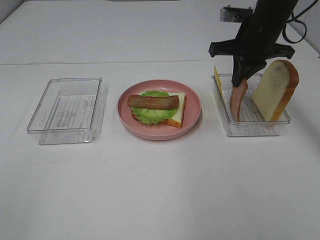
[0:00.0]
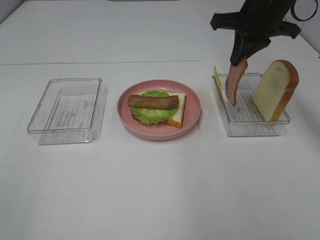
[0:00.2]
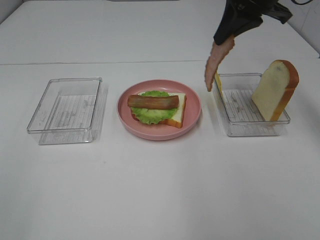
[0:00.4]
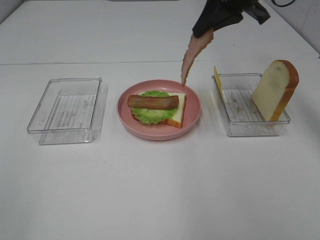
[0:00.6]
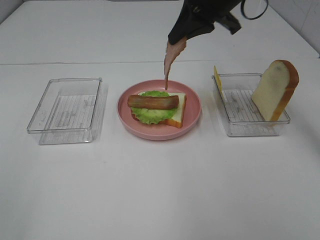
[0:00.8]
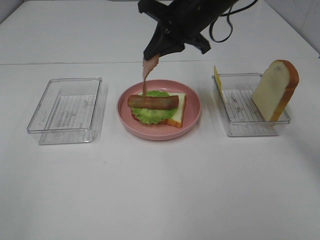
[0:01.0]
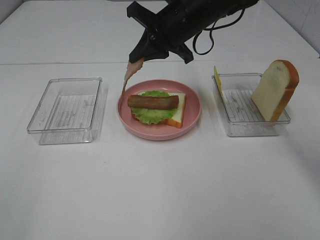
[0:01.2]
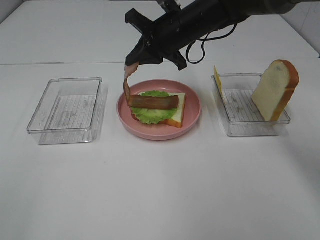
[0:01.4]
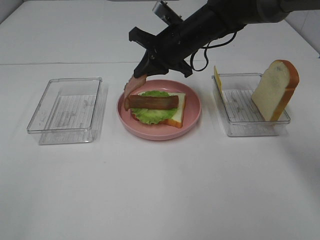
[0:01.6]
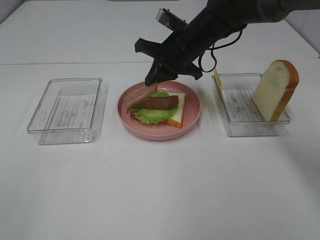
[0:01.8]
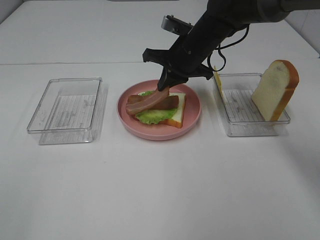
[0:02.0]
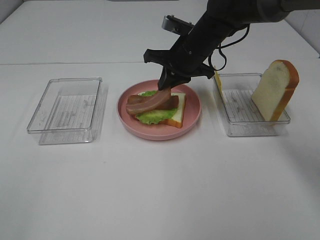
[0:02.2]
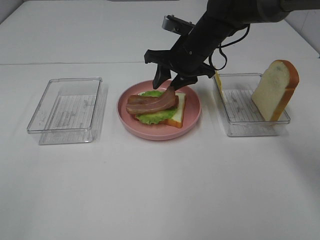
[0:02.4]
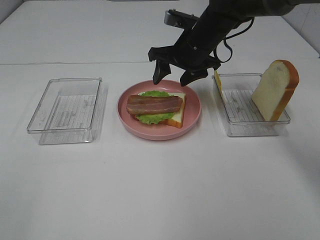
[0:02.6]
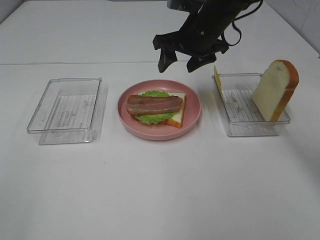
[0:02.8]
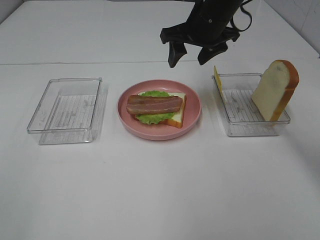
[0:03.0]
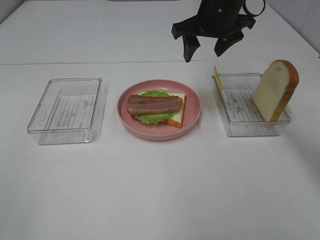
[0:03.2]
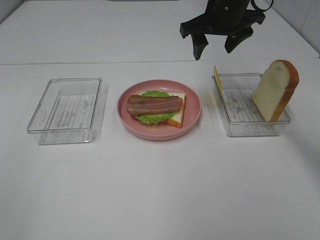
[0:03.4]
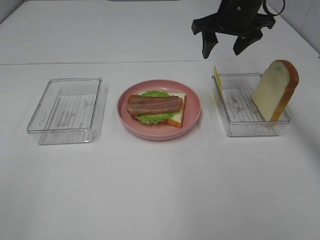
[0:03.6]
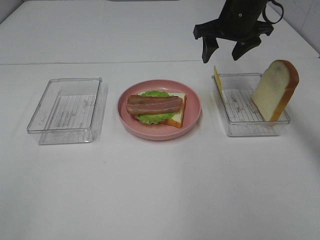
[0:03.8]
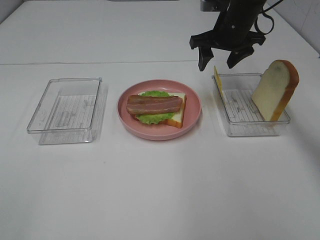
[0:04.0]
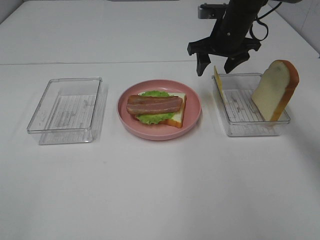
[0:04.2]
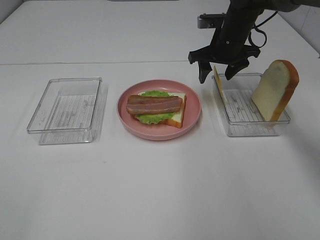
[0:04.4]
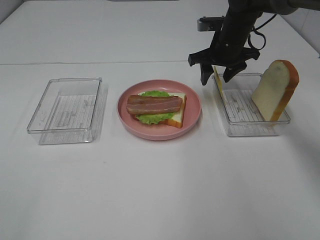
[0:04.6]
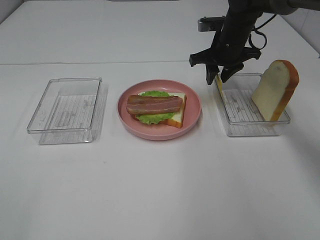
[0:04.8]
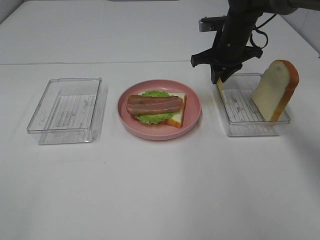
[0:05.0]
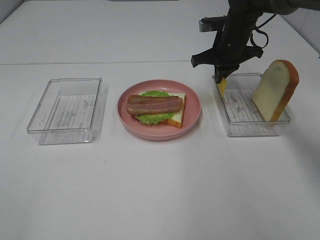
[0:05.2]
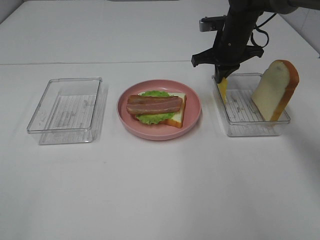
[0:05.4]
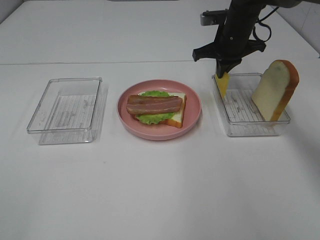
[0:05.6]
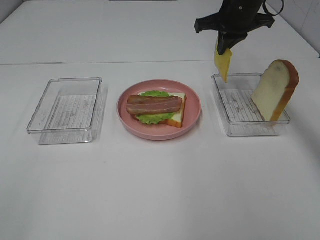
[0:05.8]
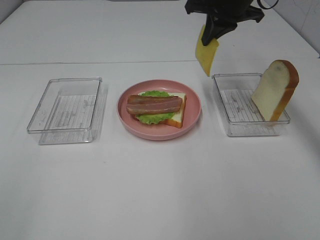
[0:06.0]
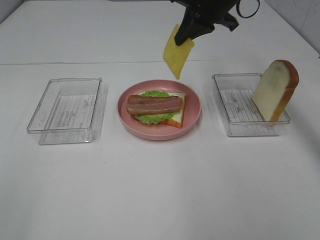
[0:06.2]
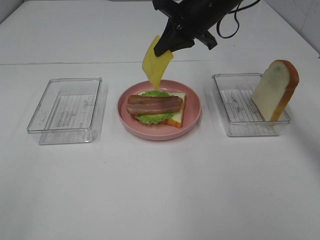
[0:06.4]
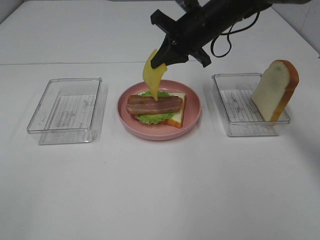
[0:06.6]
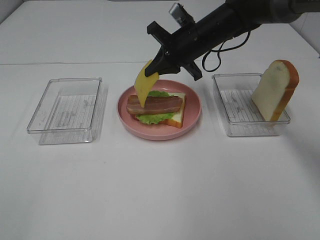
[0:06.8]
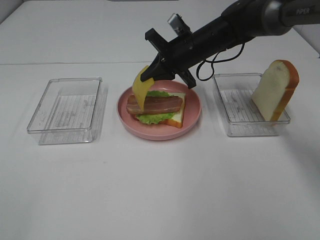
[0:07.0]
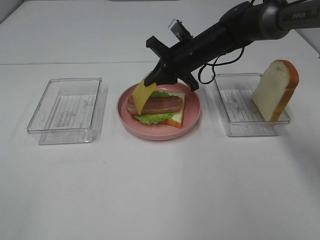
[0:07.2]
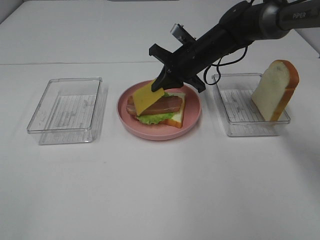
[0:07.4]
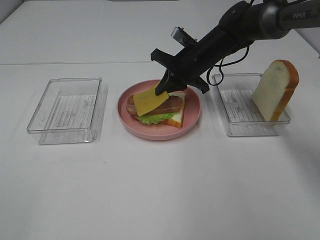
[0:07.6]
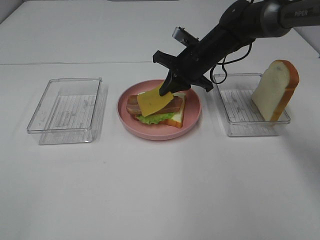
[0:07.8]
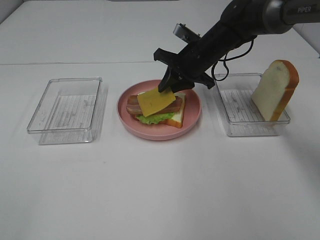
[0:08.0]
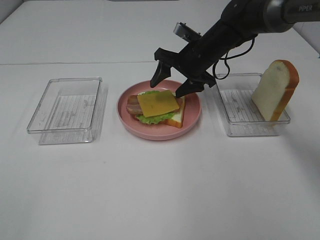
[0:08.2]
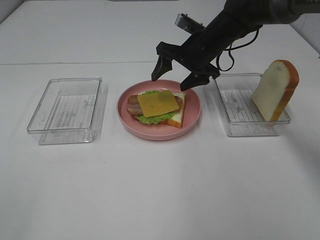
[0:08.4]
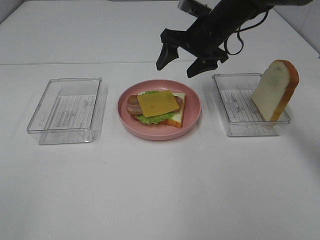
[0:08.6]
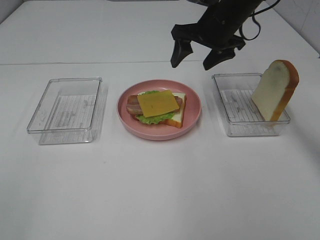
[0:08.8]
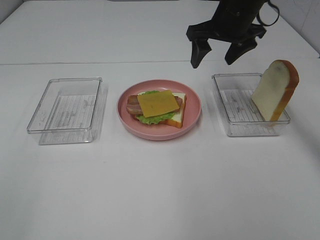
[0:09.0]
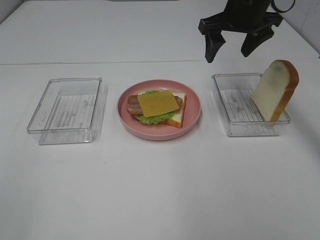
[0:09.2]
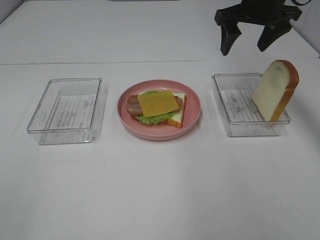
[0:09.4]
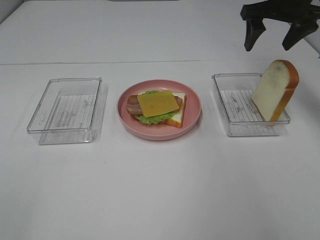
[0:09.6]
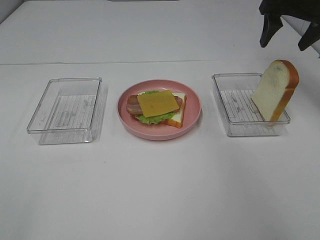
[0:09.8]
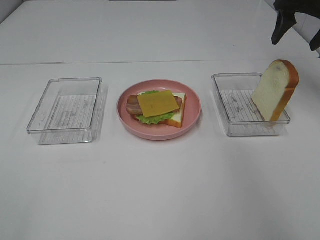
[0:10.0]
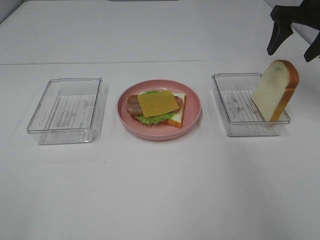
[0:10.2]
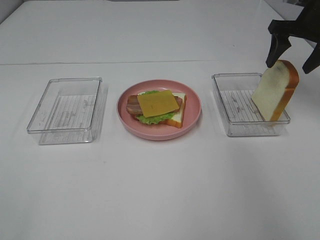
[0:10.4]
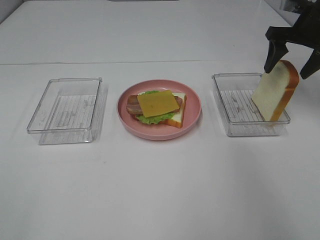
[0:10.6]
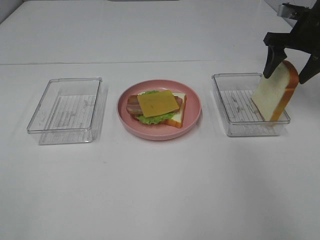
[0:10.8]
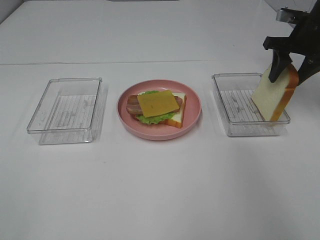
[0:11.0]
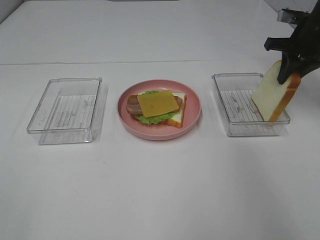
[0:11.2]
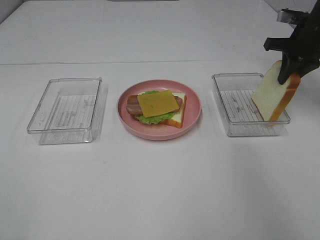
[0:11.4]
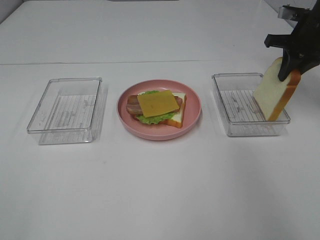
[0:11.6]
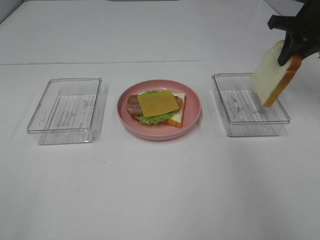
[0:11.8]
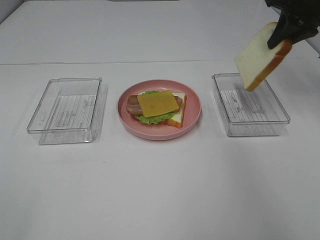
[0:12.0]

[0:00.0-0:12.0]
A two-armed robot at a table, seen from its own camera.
Task of the whole recording: Make sandwiches.
Step, 0:00.0 to 0:02.6: Right hand:place bacon on bacon.
Step, 0:02.8 to 0:05.2: Right hand:grab the cheese slice.
Step, 0:05.4 to 0:08.2: Right hand:place the cheese slice on top of the bacon.
Step, 0:08.4 to 0:11.4: Right hand:grab the bread slice.
0:00.0 to 0:01.6: The right gripper moves to the left and downward, about 15 cm.
0:01.6 to 0:03.0: The right gripper is displaced upward by approximately 5 cm, and opens.
0:03.0 to 0:04.4: The right gripper moves downward, forward and to the right, about 10 cm.
0:04.4 to 0:06.0: The right gripper goes about 10 cm upward, and closes up.
0:06.0 to 0:07.6: The right gripper travels downward by roughly 15 cm.
0:07.6 to 0:09.0: The right gripper moves upward, some 10 cm, and opens up.
0:09.0 to 0:10.4: The right gripper goes some 15 cm to the right.
0:10.4 to 0:12.0: The right gripper closes its fingers.

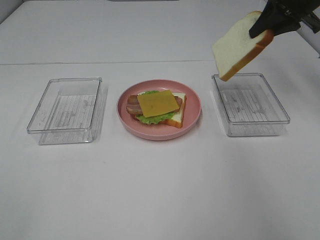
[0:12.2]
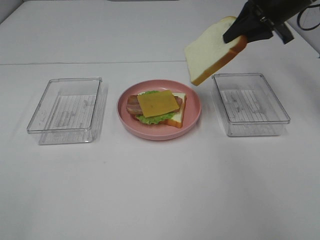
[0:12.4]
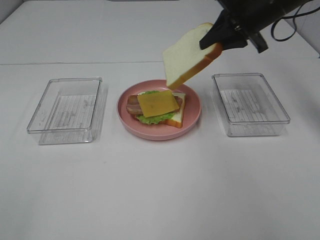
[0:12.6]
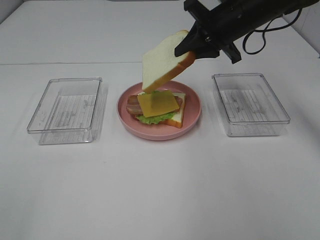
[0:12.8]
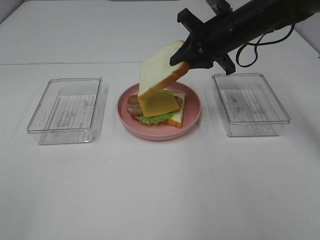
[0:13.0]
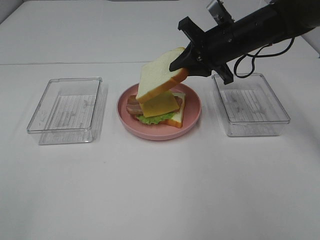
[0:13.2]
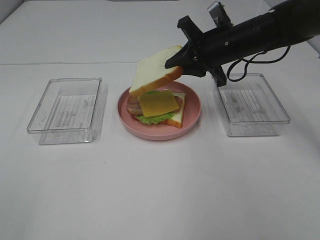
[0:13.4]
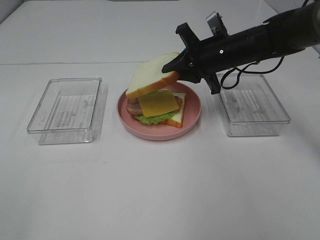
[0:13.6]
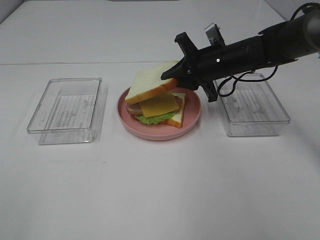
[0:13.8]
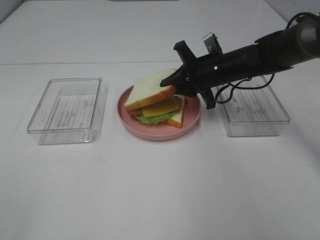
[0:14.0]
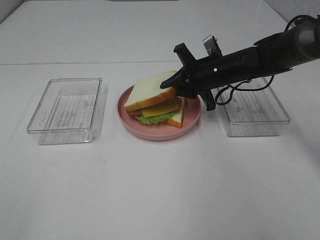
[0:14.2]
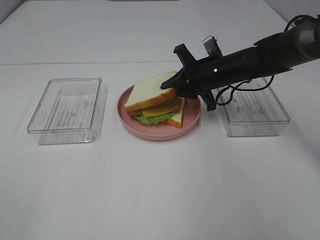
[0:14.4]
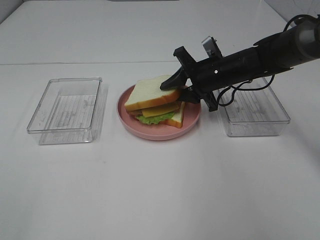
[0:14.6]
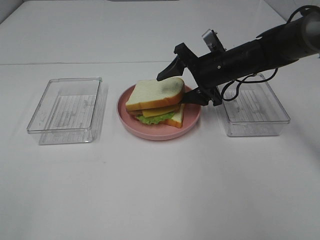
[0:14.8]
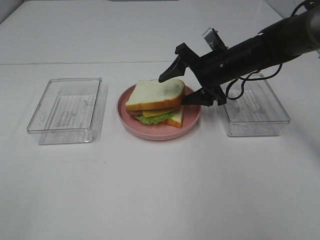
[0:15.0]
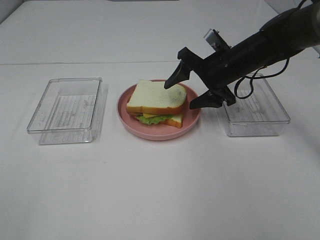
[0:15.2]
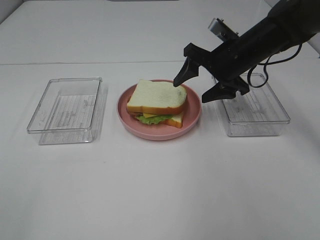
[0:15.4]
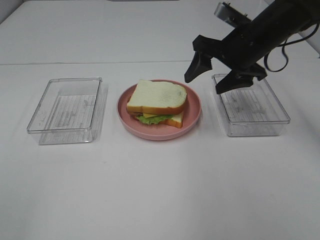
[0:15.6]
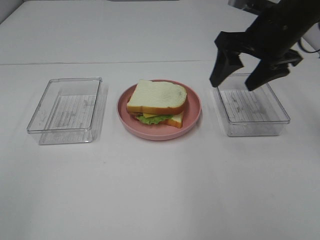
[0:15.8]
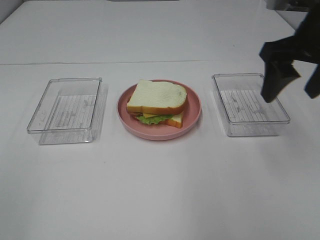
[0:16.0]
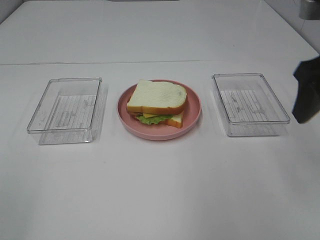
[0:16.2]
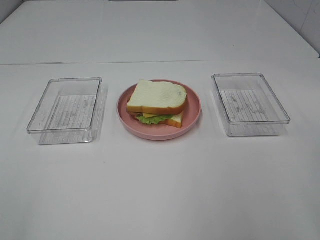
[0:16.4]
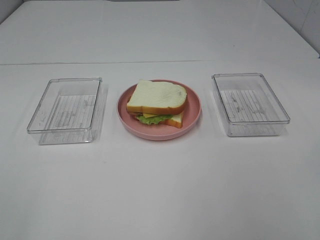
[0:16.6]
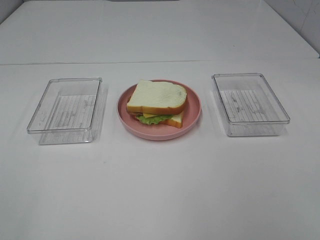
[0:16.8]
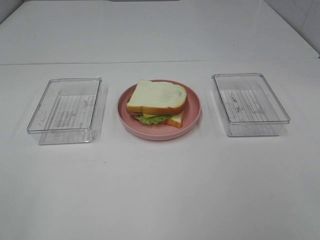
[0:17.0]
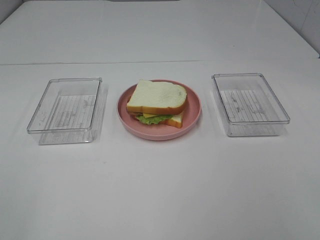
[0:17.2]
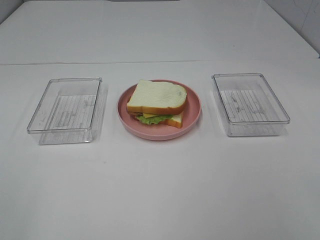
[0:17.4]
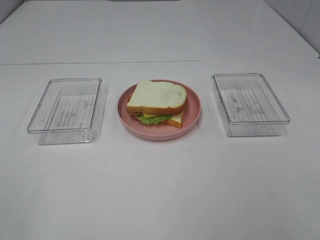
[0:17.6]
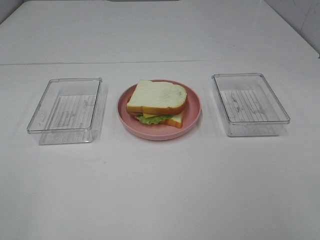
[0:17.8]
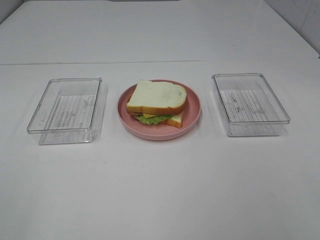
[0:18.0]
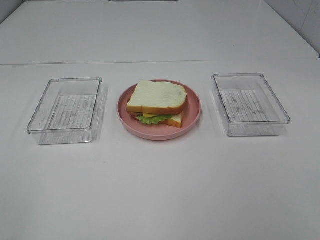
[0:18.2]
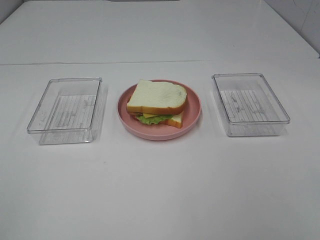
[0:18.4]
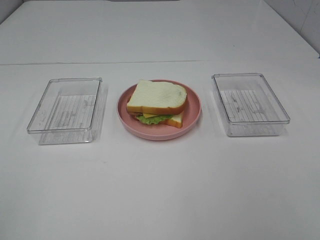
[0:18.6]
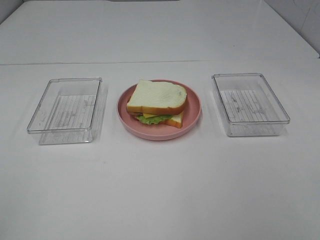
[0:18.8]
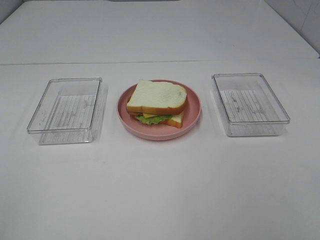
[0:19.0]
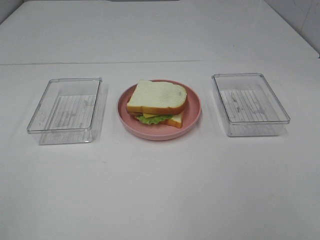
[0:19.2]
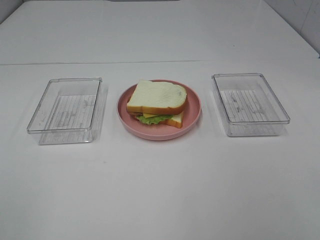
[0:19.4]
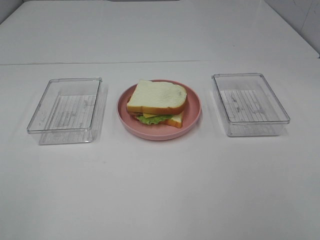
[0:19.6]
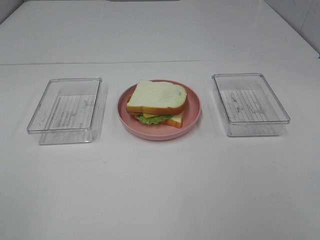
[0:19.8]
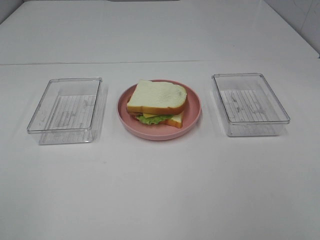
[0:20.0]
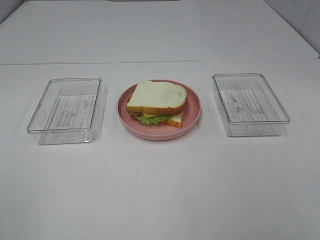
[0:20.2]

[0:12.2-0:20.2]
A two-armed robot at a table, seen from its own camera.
Task of the whole recording: Make sandwiches.
Step, 0:12.2 to 0:15.2: Right hand:place the bread slice on the cheese slice.
0:12.2 to 0:13.8: The right gripper heads downward and to the left, covering approximately 20 cm.
0:13.8 to 0:15.4: The right gripper opens up.
0:15.4 to 0:17.0: The right gripper is displaced backward by about 40 cm.

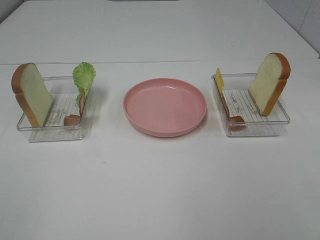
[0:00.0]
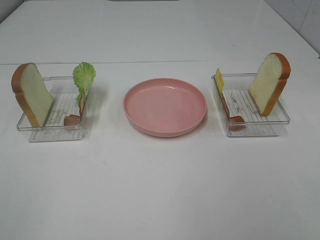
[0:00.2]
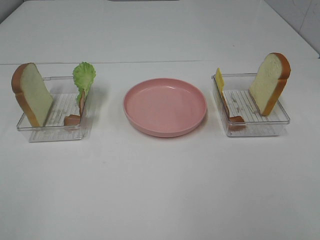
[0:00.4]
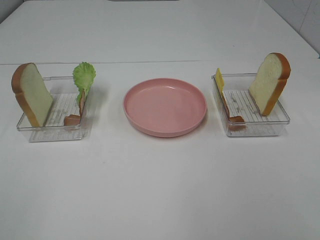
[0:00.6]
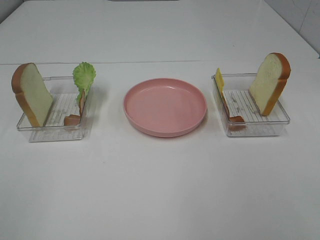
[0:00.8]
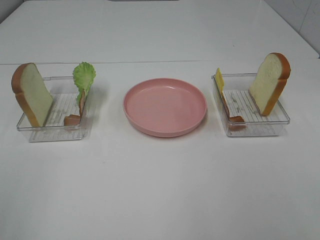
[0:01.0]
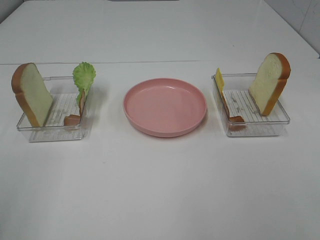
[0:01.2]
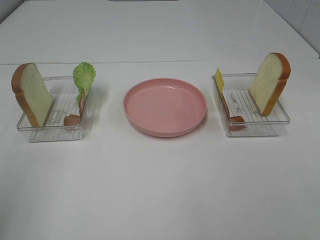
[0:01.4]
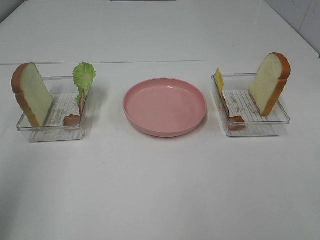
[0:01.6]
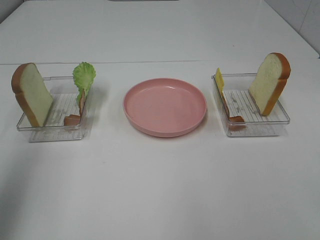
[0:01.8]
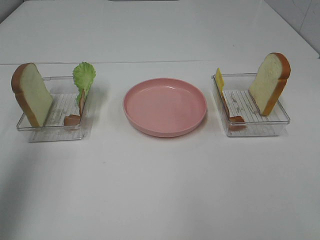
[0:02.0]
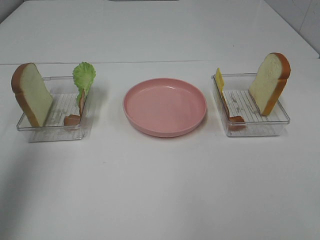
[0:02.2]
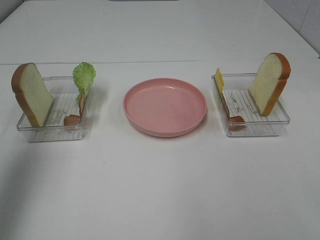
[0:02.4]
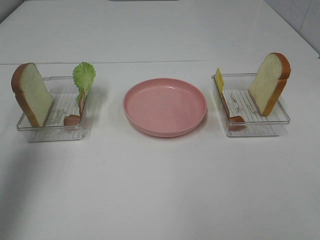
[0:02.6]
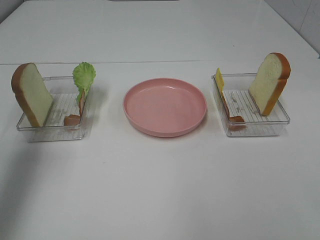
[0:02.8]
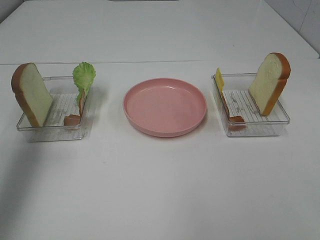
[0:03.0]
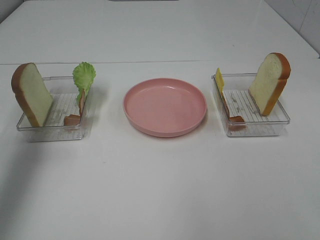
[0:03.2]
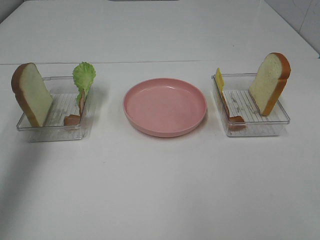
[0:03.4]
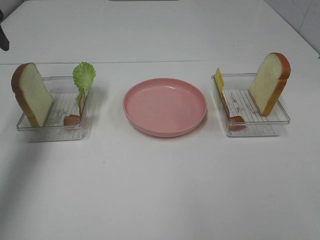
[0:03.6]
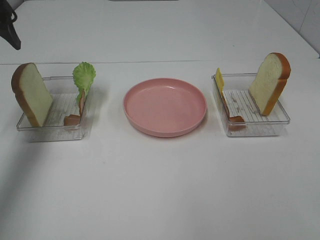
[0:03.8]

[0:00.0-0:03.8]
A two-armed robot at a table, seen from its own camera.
Task of the whole recording: Make sandwiches.
0:01.2 to 0:02.6: The left gripper shifts some 15 cm forward.
0:02.6 to 0:03.8: The left gripper shifts approximately 15 cm forward and downward.
